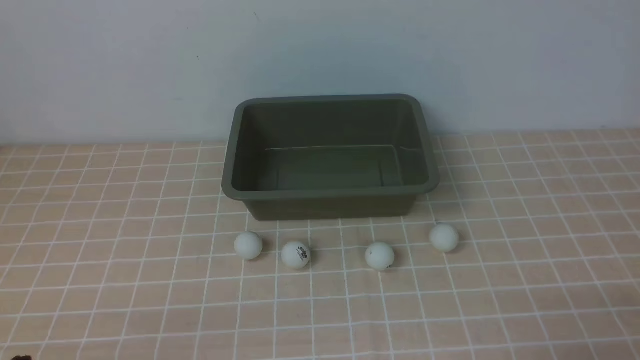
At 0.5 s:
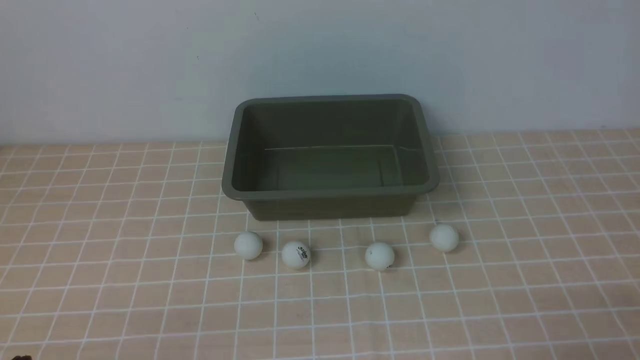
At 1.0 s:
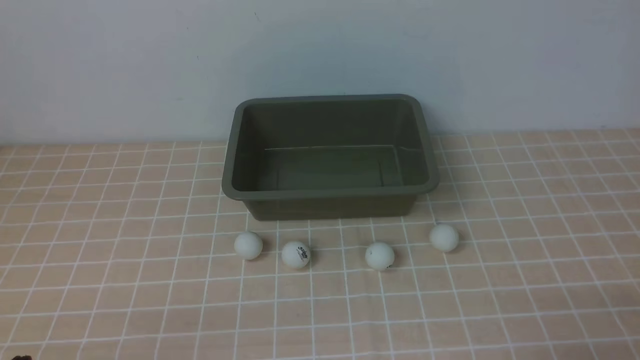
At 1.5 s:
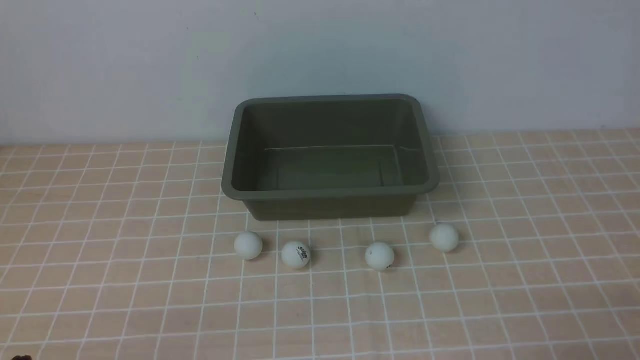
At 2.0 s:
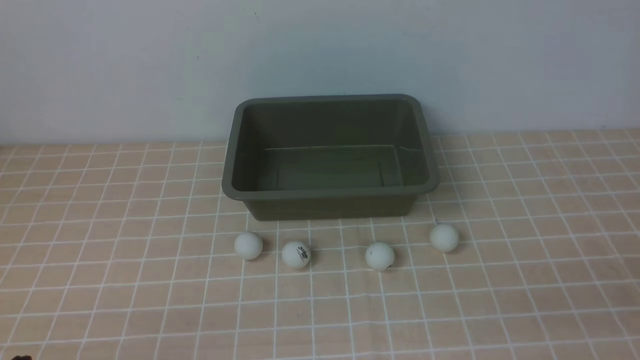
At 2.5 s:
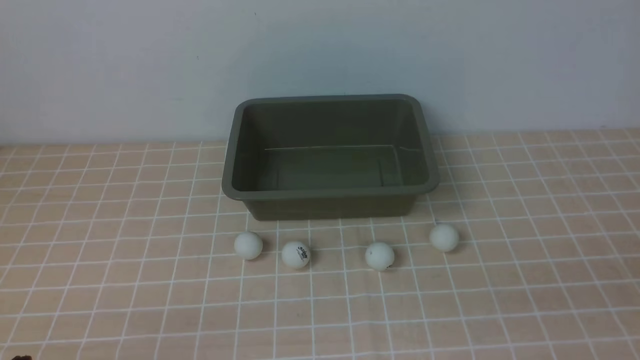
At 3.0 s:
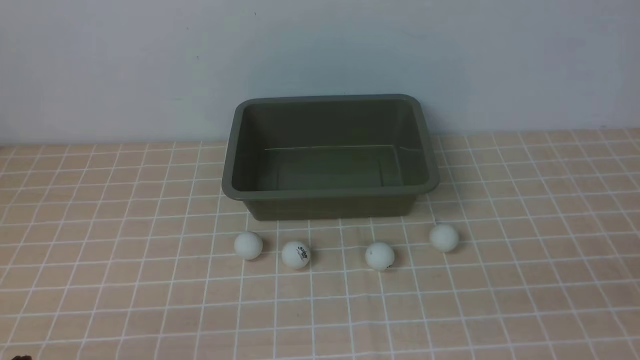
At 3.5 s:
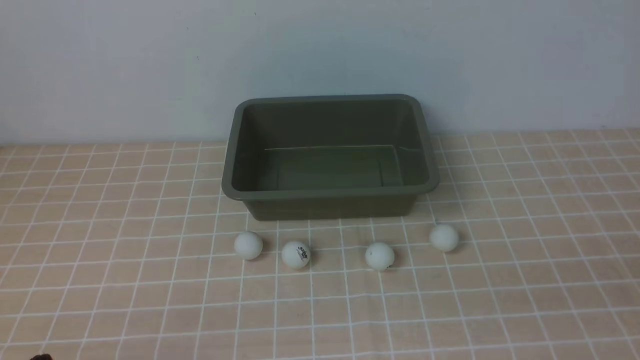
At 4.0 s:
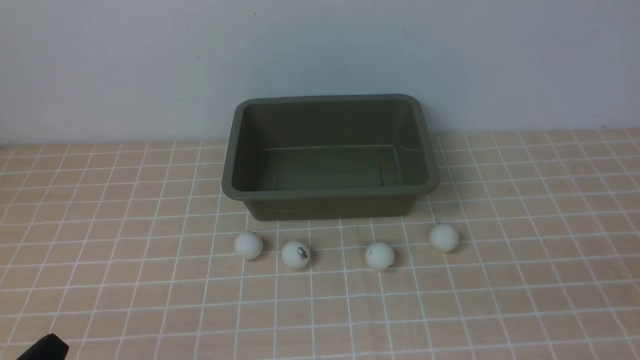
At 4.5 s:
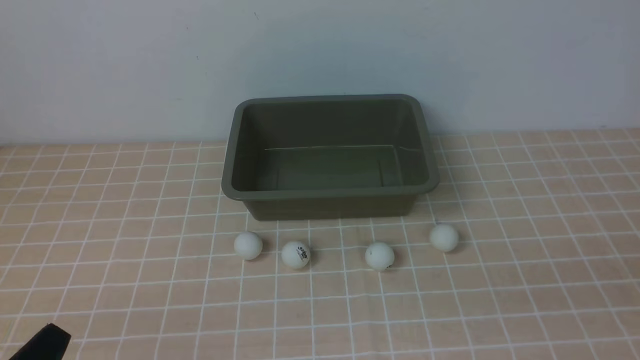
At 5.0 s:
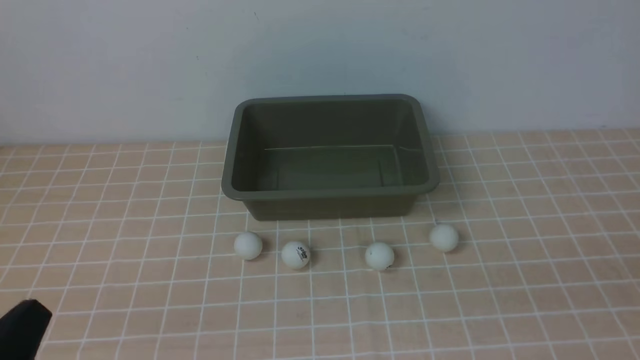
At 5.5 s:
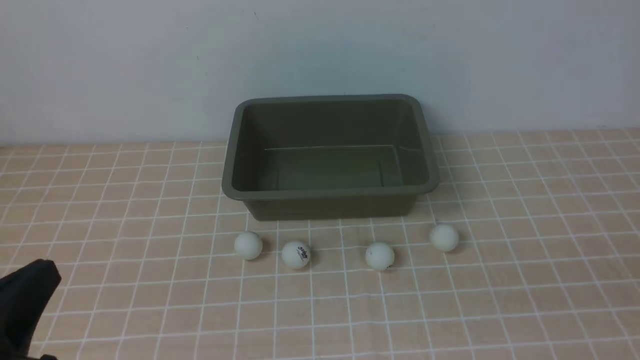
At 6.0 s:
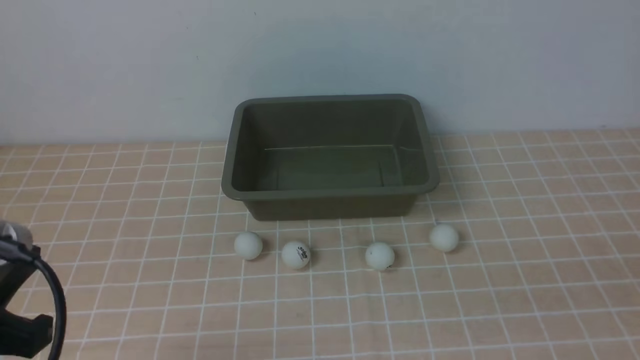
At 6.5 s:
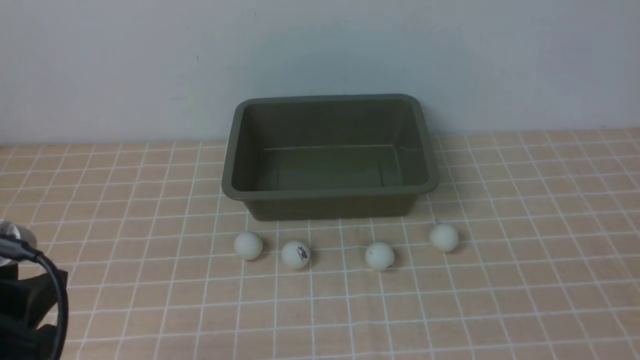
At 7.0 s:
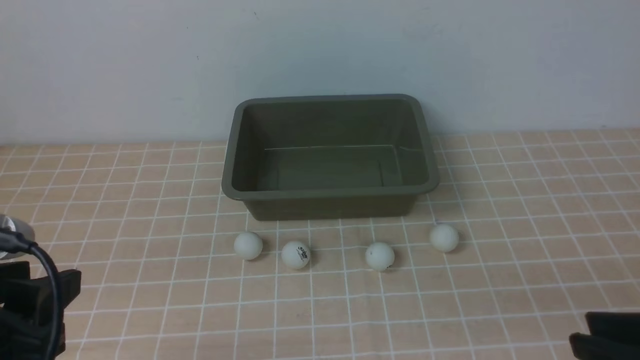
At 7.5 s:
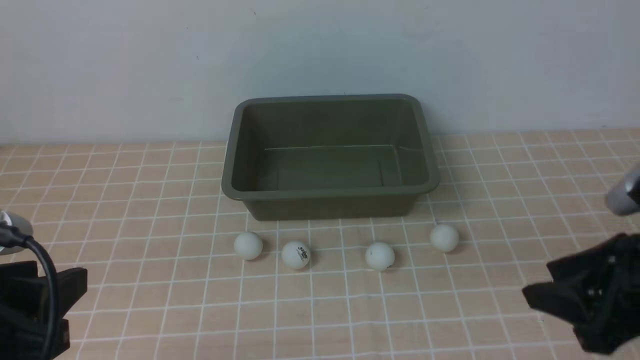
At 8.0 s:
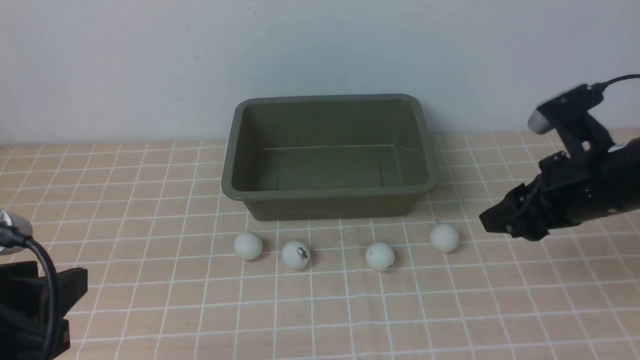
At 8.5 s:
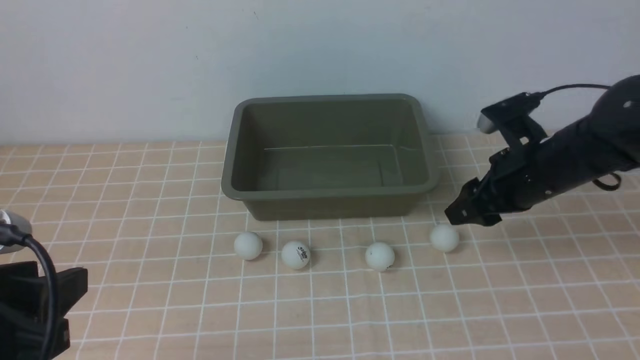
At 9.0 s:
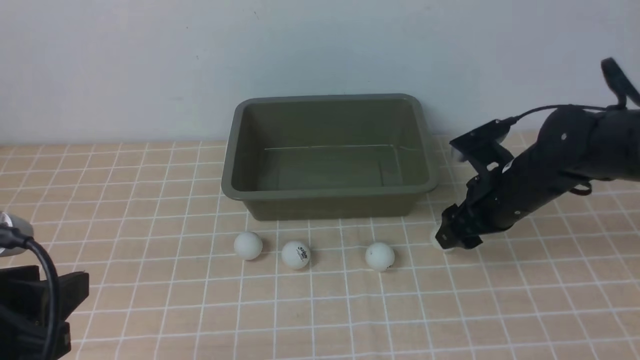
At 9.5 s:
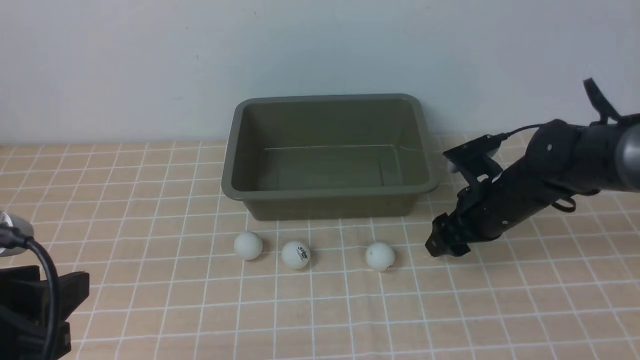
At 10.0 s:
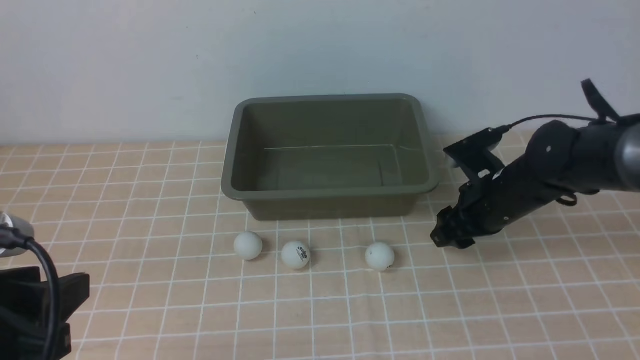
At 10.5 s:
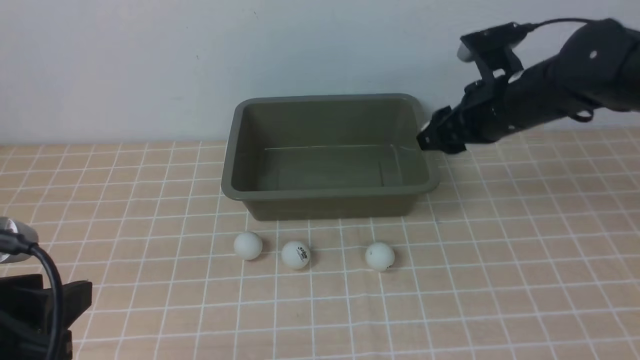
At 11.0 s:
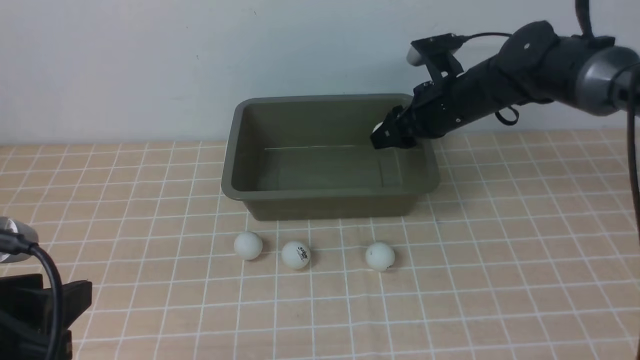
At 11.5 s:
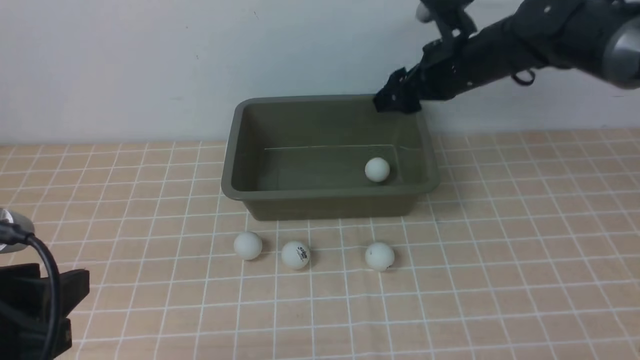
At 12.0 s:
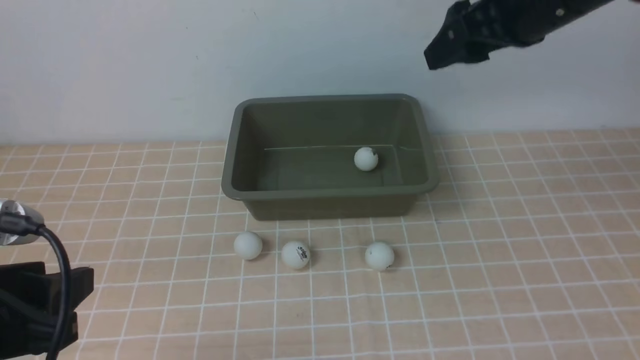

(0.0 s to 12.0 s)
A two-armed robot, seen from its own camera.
Step, 0.0 s - 10.5 s: use the right arm to clamp the table tennis ball closest to it.
Step, 11.0 s - 11.5 s: use the right arm to put the table tennis ball into the box.
4.0 s - 6.0 s: The left gripper shifts about 15 cm upward and forward.
6.0 s - 8.0 s: The left gripper opens. Meanwhile the right gripper is displaced forward by about 30 cm, and opens its fingers.
8.0 s - 10.0 s: The right gripper travels downward and forward by approximately 10 cm.
10.0 s - 12.0 s: The right gripper travels upward by roughly 20 cm.

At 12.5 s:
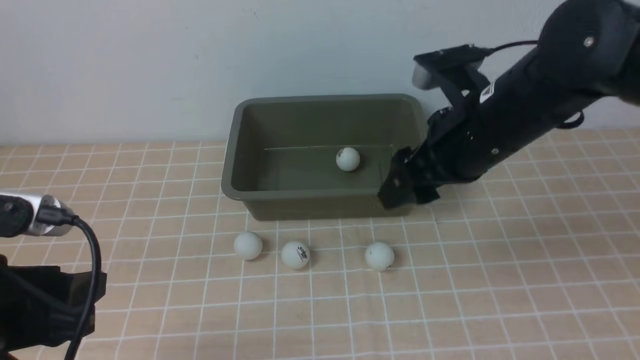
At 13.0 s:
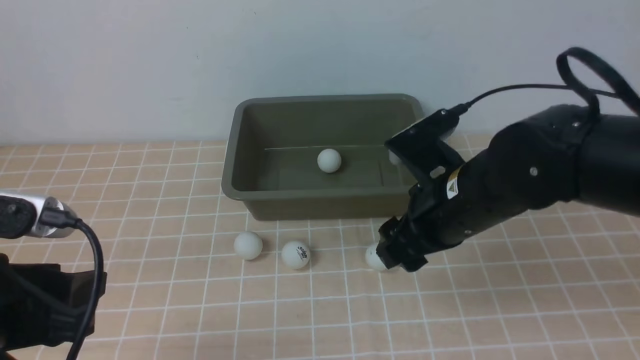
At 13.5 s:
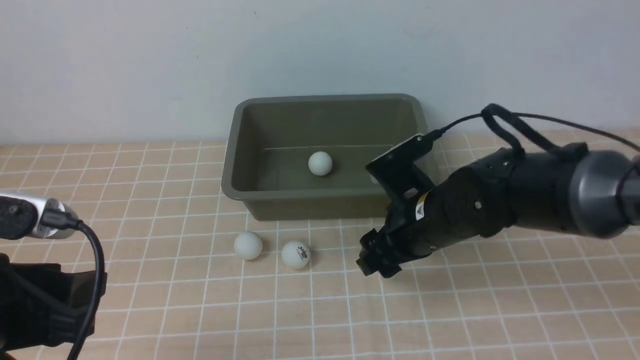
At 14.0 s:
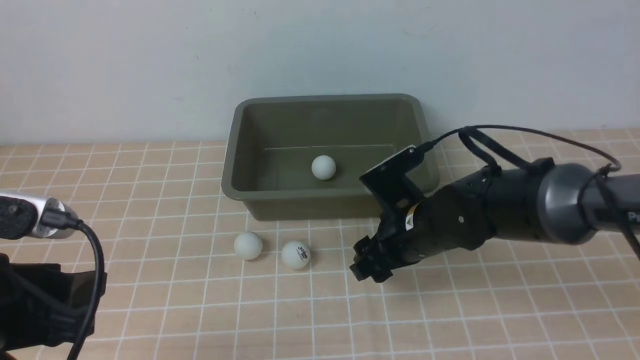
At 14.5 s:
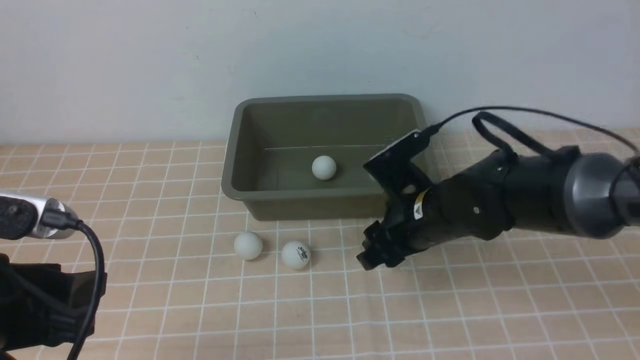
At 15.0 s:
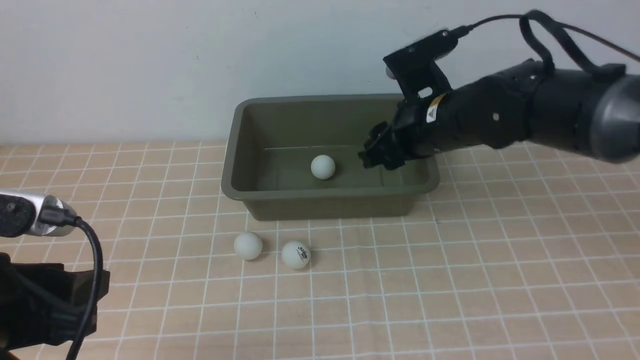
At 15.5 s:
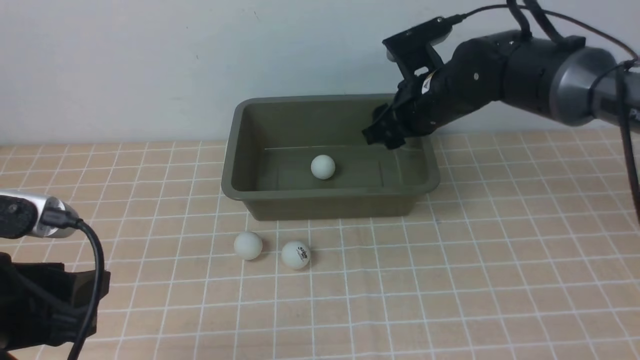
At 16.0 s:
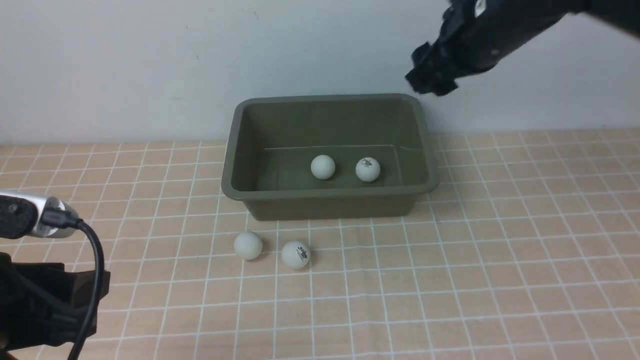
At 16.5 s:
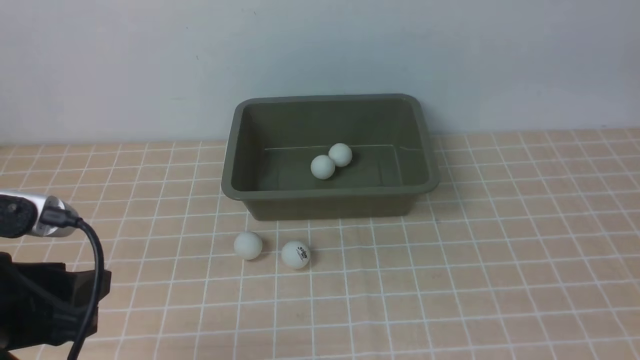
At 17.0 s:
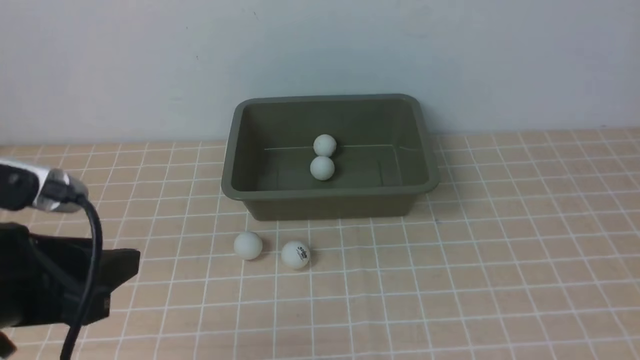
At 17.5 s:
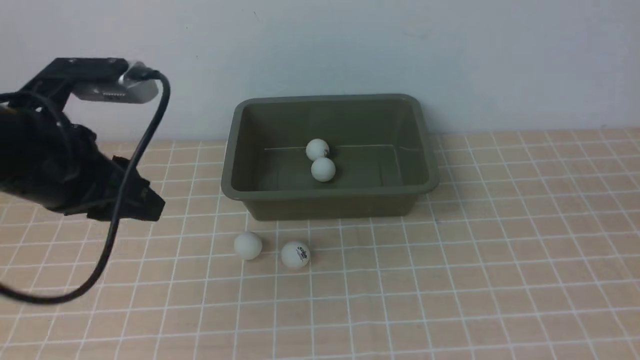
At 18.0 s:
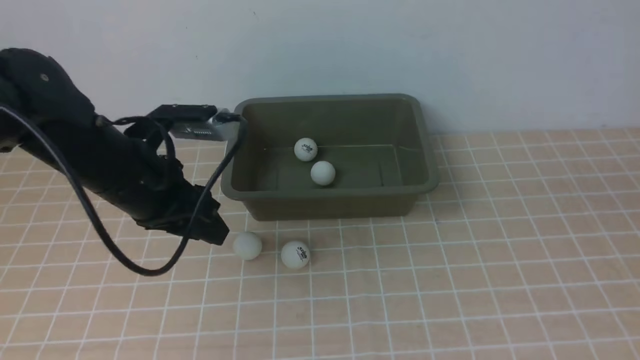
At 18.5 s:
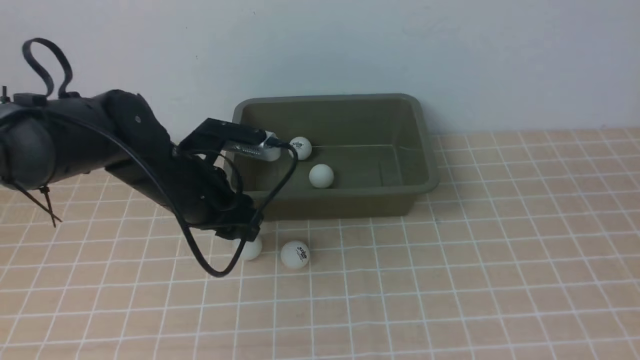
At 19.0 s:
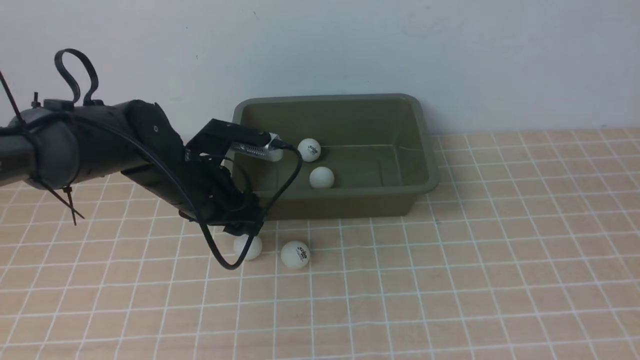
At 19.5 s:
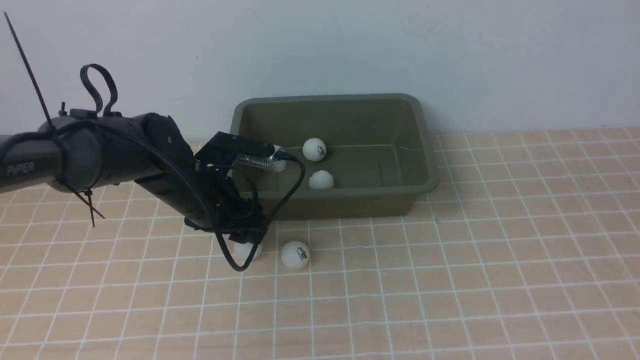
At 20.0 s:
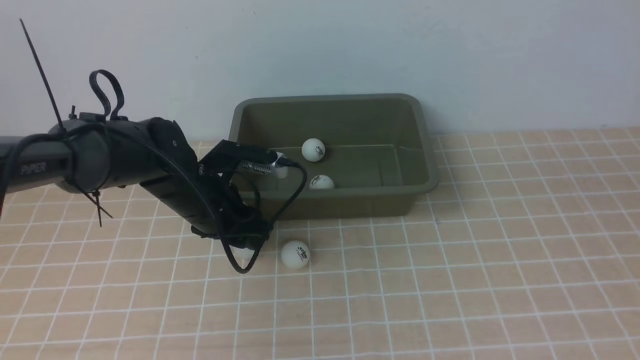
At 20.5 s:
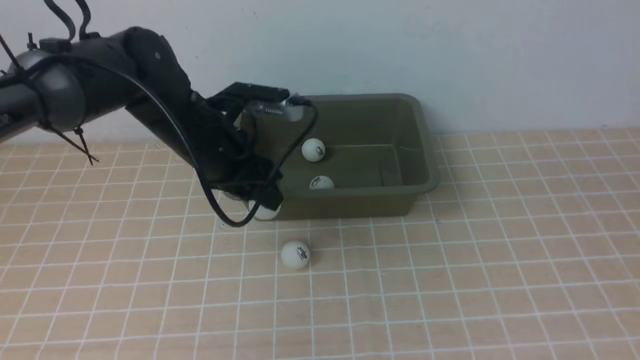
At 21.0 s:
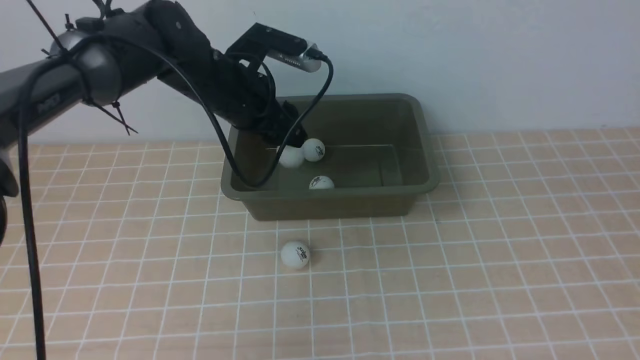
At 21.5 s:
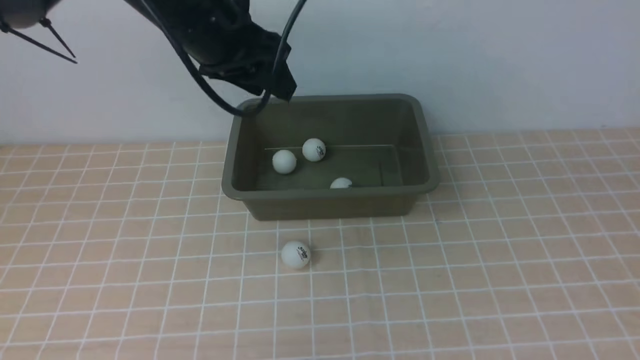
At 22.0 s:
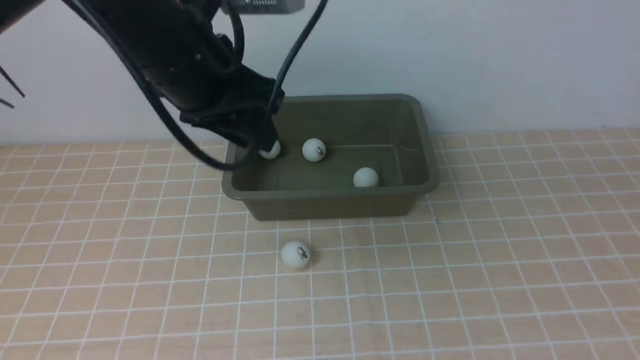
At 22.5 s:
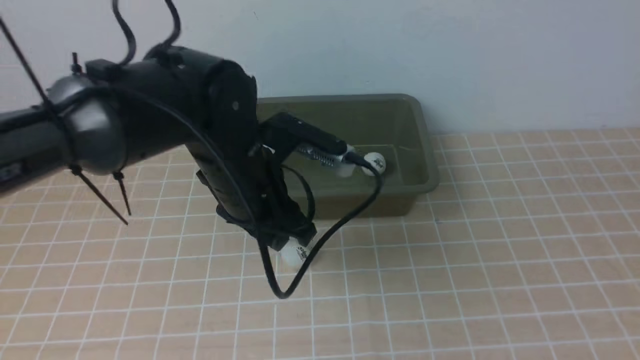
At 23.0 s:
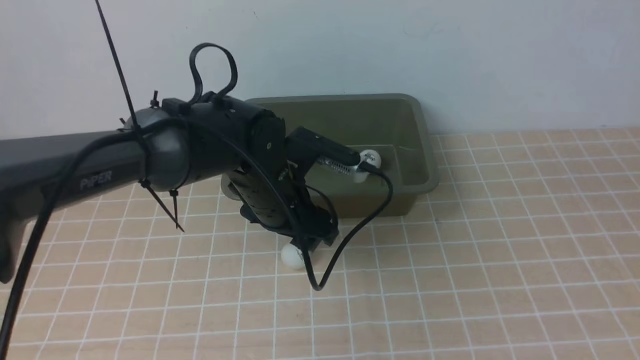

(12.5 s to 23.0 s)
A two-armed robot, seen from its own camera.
Step, 12.5 s - 14.5 s: use the right arm to clamp the table tennis ball closest to it.
Step, 15.0 s - 16.0 s: use the right arm to put the table tennis ball into the box.
Step, 16.5 s - 20.0 s: use the left arm to clamp the table tennis ball closest to it.
Step, 20.5 s - 21.5 s: use the left arm to put the table tennis ball into the box.
12.5 s - 14.5 s: The right gripper shifts roughly 10 cm downward.
14.5 s - 16.5 s: The right gripper moves upward, about 30 cm.
16.5 s - 19.0 s: The right gripper shifts roughly 15 cm backward and downward. The left gripper heads forward and downward, covering about 25 cm.
19.0 s - 21.0 s: The left gripper moves upward and forward, some 10 cm.
21.0 s - 23.0 s: The left gripper travels backward, downward and to the right by about 15 cm, and closes, then reopens.
